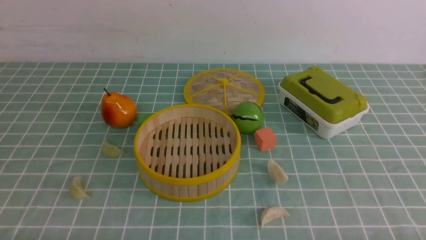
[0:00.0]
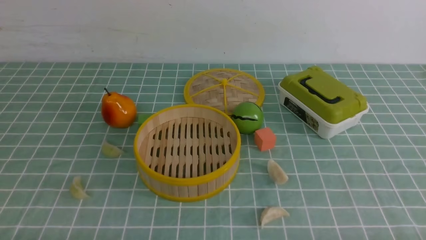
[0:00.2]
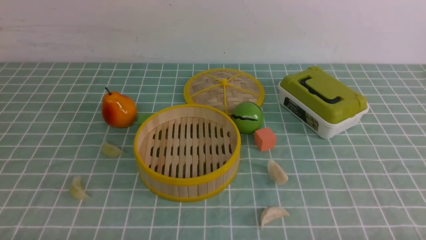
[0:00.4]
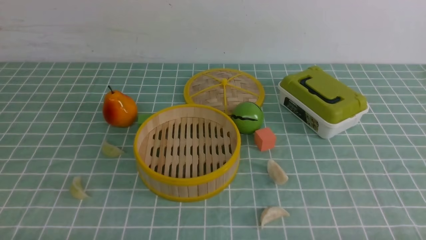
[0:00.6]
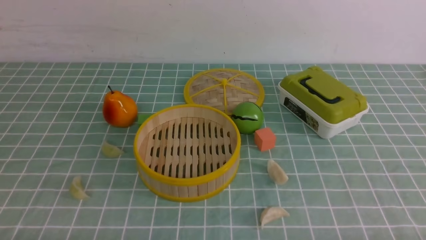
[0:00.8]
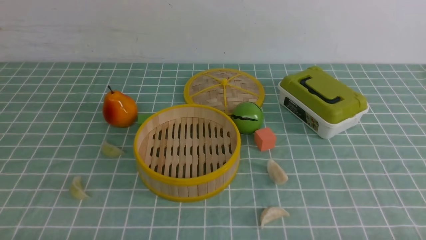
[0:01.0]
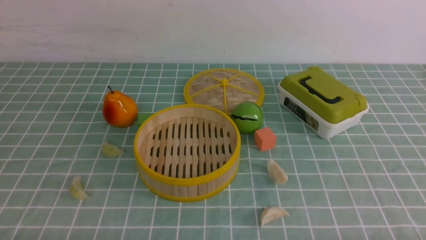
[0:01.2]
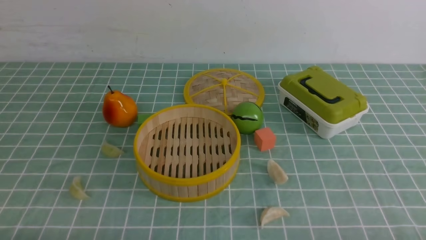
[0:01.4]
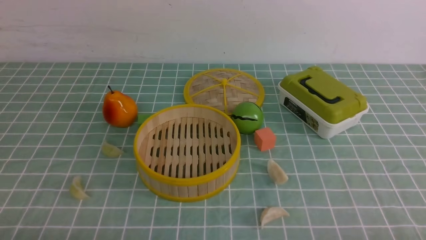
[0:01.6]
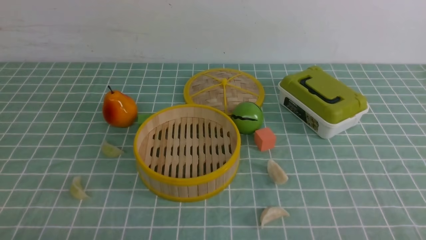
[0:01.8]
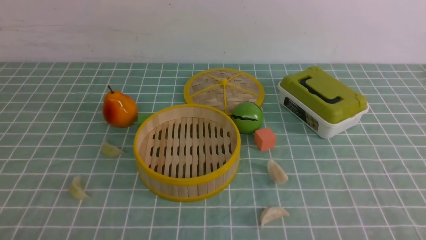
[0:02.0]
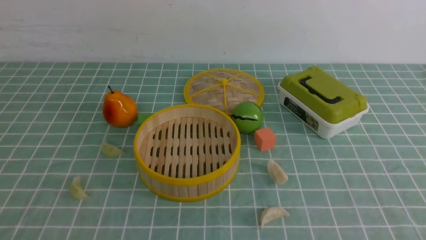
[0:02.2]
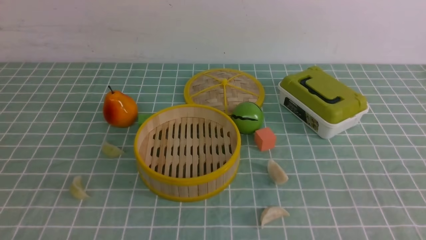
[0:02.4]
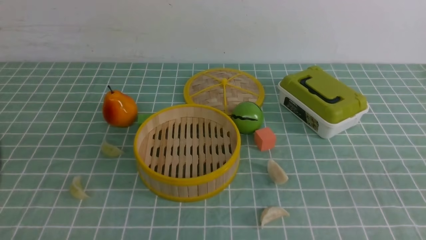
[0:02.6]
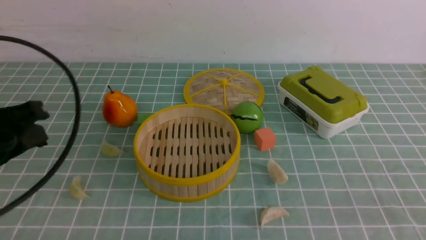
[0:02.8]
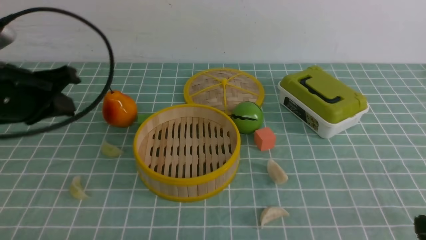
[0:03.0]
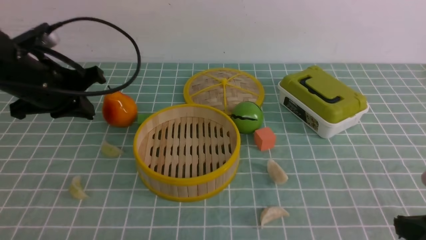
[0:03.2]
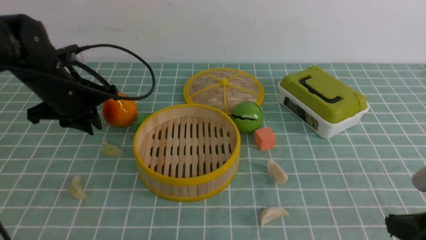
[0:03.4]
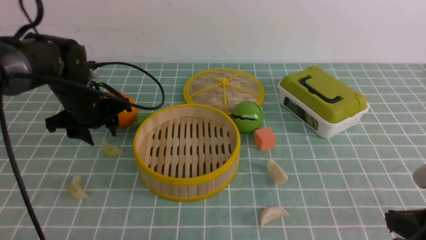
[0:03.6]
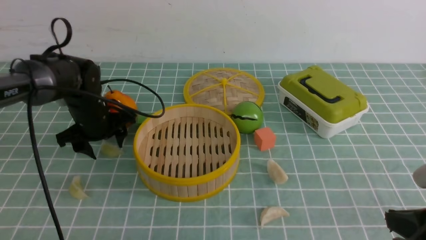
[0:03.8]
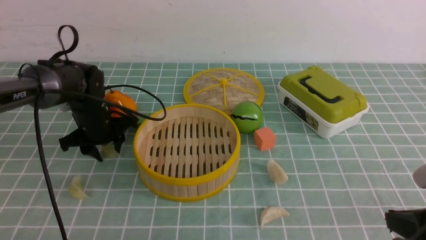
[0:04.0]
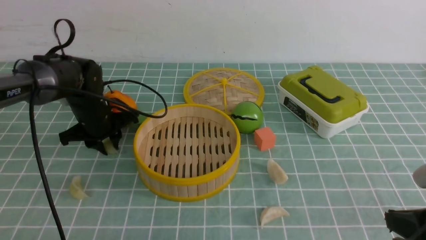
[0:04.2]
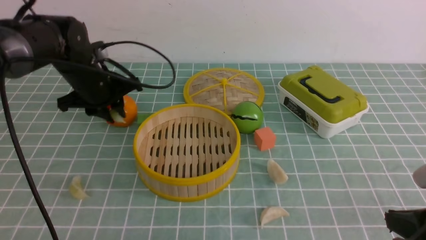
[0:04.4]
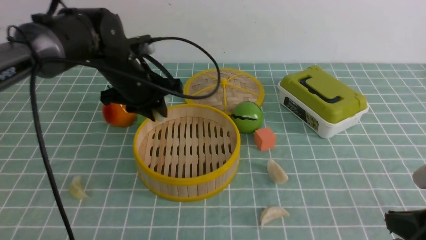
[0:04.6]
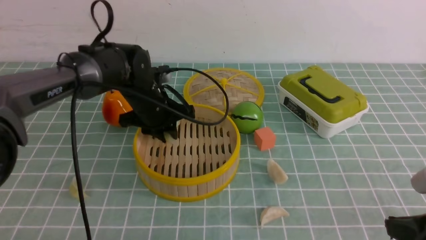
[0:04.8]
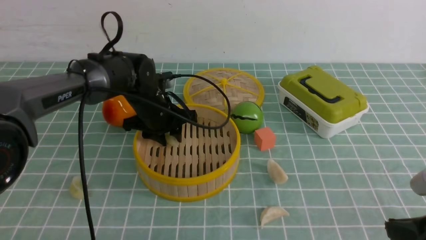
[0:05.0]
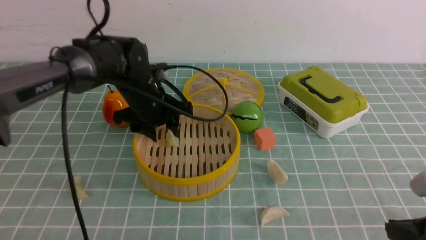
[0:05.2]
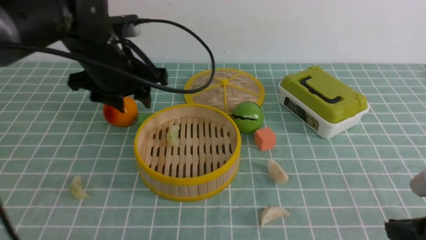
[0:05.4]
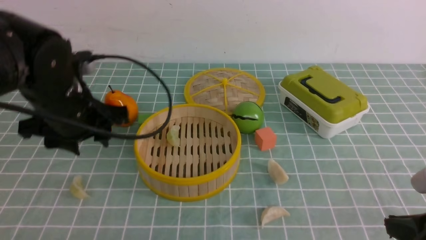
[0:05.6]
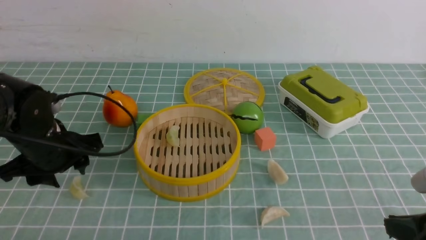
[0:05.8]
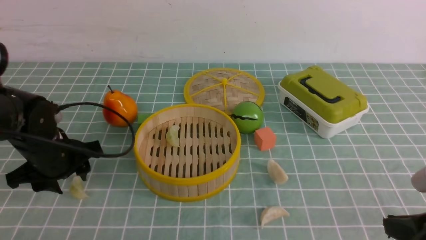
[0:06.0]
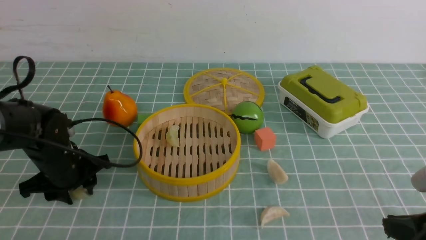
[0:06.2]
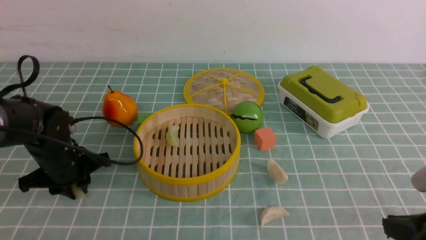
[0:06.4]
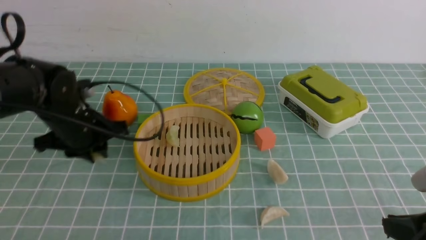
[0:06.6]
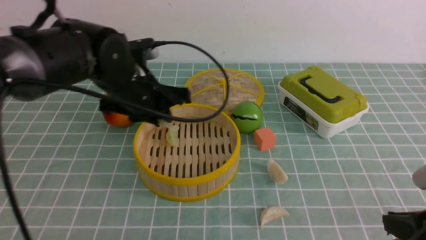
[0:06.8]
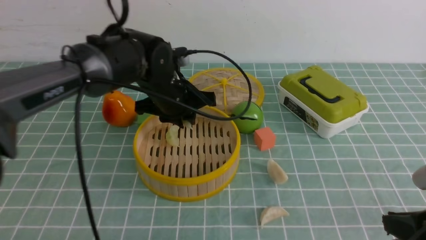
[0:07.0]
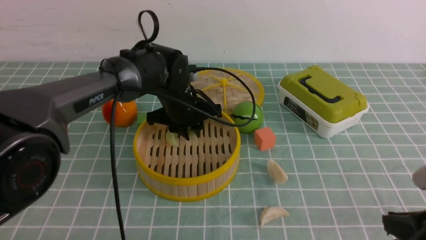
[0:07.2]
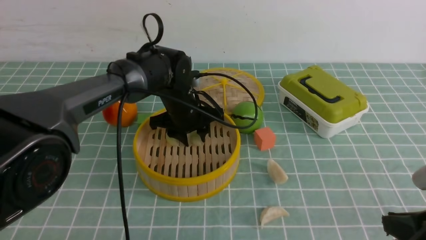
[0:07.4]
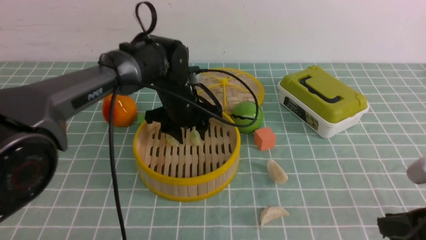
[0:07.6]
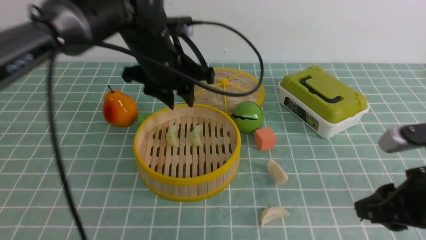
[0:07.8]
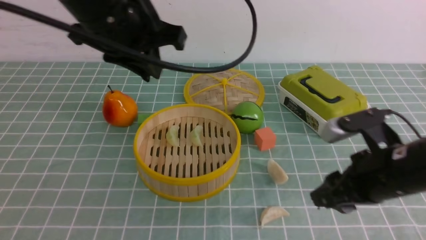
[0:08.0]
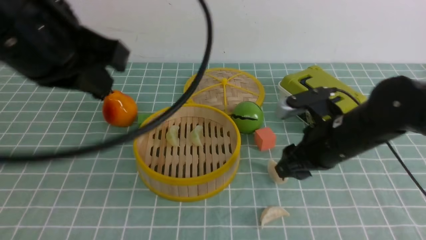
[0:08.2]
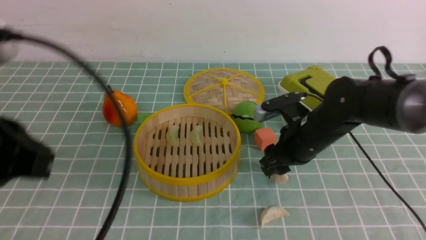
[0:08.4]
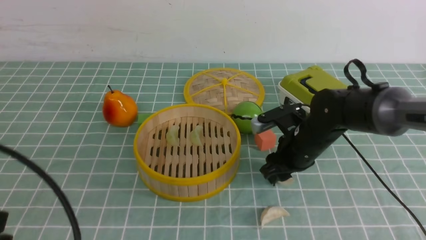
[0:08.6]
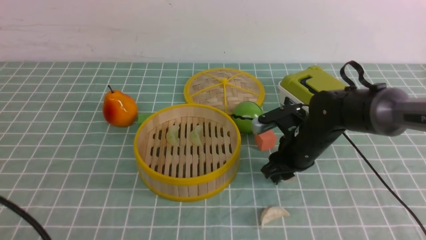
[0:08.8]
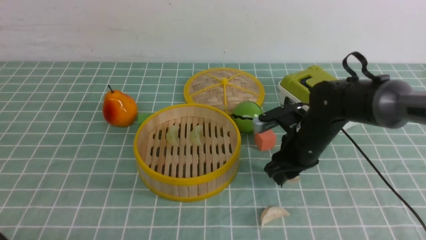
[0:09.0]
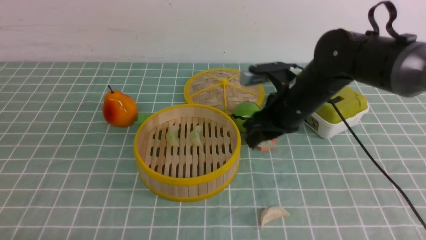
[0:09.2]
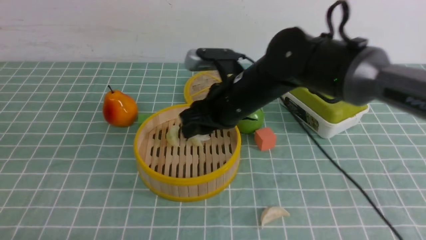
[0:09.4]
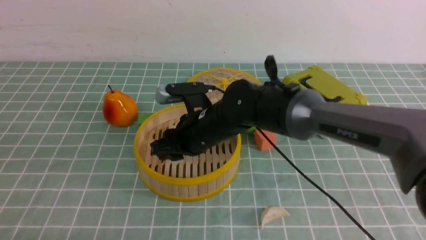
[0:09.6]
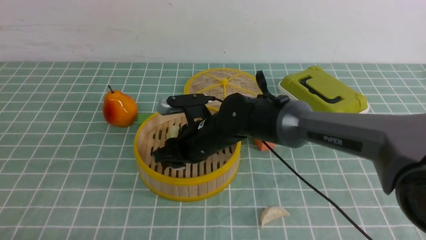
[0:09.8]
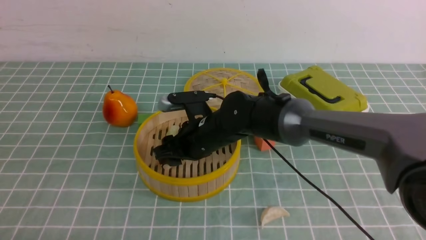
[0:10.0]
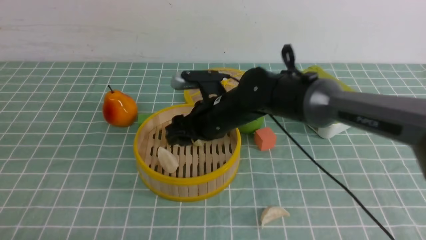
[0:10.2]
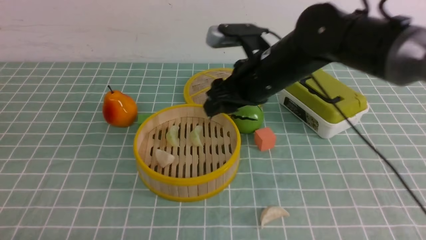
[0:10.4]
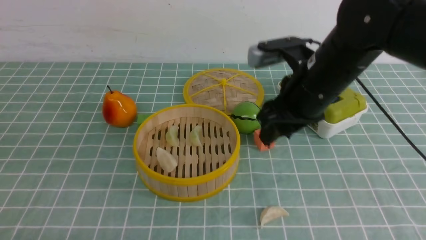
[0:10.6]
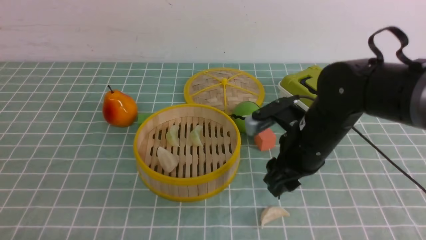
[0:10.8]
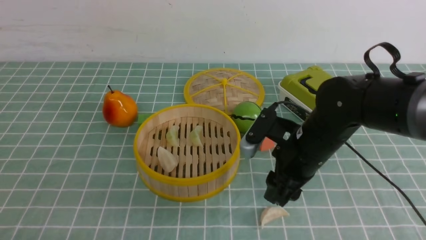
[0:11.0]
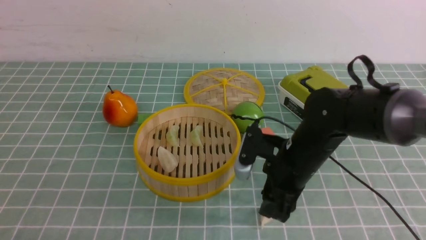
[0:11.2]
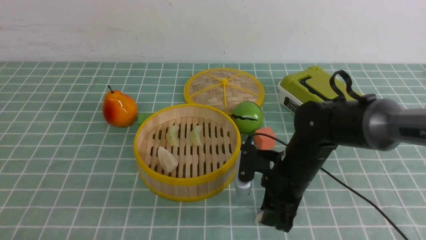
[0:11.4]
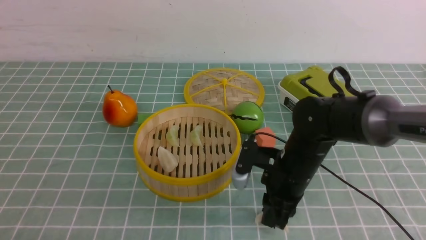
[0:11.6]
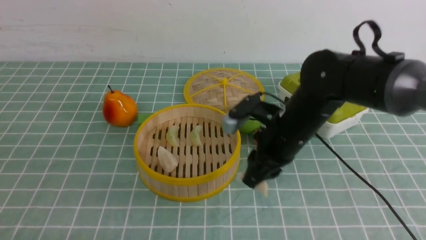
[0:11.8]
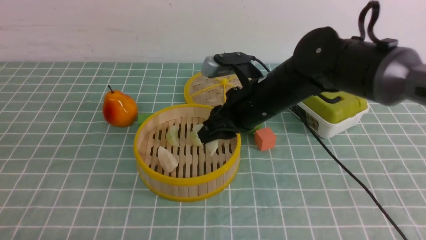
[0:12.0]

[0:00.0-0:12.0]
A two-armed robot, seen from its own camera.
Task of the whole recording: put the dumplings into the steamer on the table with the blue tablecloth.
Step, 0:00.0 to 0:04.0: use the left arm to grab a dumpling.
Step, 0:04.2 to 0:05.2: use the left arm to put the dumpling into the steamer.
Step, 0:05.4 to 0:06.2: use the left arm to grab a dumpling.
Step, 0:06.4 to 0:07.6: use the left arm to put the dumpling into the steamer.
Step, 0:07.8 to 0:08.6: use the right arm to grab a dumpling.
Step, 0:08.8 to 0:10.2: use the right arm to put the dumpling into the steamer.
Step, 0:10.4 to 0:11.4: use the right arm to grab a dumpling.
0:01.6 to 0:03.0: The left gripper travels forward and upward by roughly 25 cm.
0:03.0 to 0:04.4: The left gripper travels forward, downward and to the right by roughly 20 cm, and opens up.
0:04.4 to 0:06.0: The left gripper is displaced backward, to the left and downward by approximately 15 cm, and opens.
0:06.0 to 0:07.6: The left gripper travels to the right, forward and upward by some 20 cm, and closes, then opens again.
0:07.6 to 0:09.0: The right gripper goes approximately 25 cm forward and to the left. The left gripper shifts approximately 40 cm backward and to the left, and closes.
0:09.0 to 0:10.4: The right gripper travels upward and to the left by roughly 10 cm.
0:10.4 to 0:12.0: The right gripper closes its fingers.

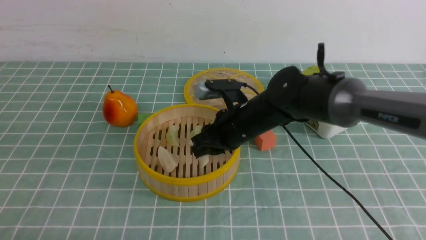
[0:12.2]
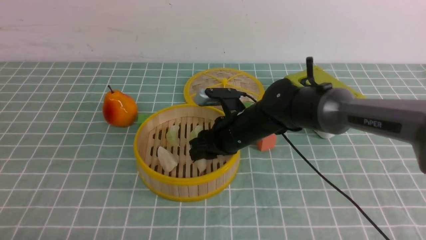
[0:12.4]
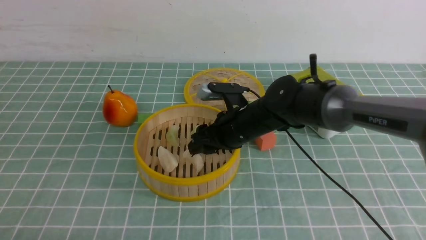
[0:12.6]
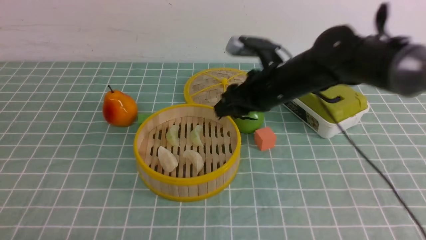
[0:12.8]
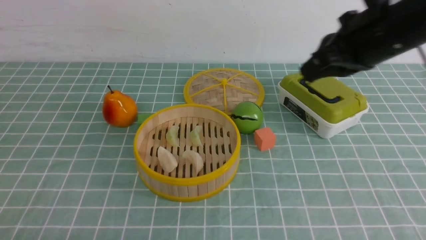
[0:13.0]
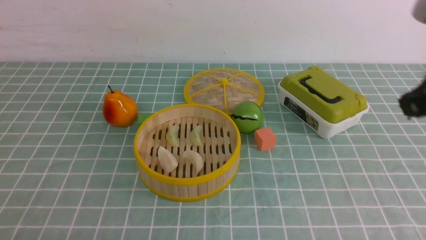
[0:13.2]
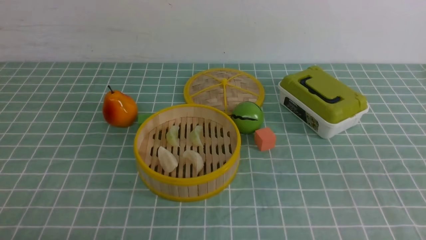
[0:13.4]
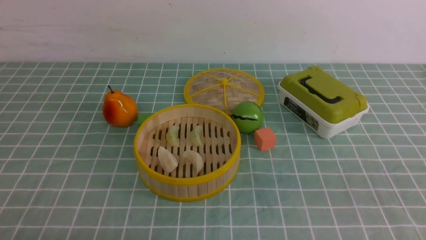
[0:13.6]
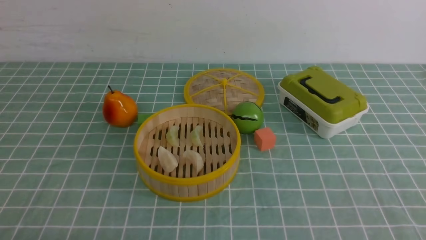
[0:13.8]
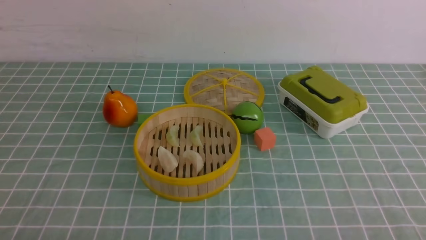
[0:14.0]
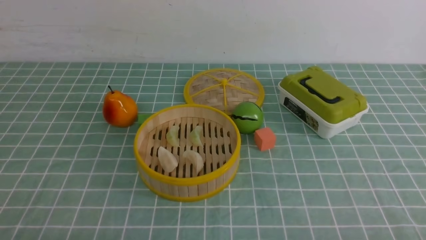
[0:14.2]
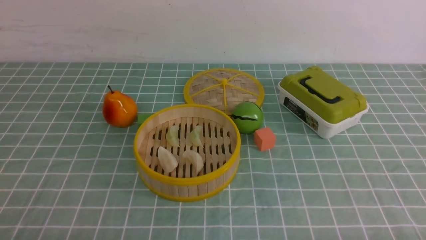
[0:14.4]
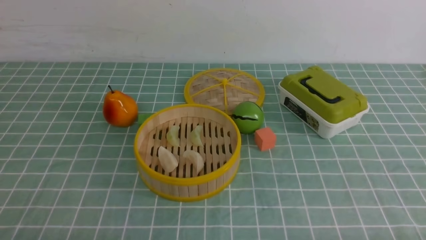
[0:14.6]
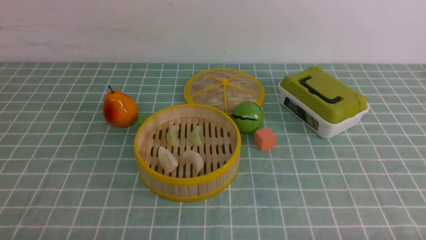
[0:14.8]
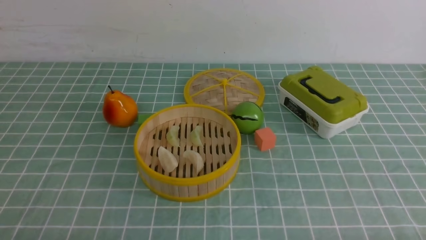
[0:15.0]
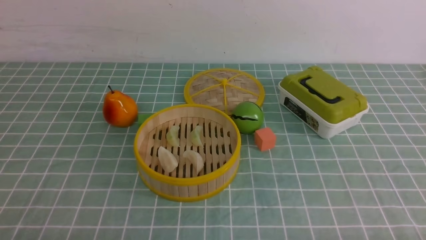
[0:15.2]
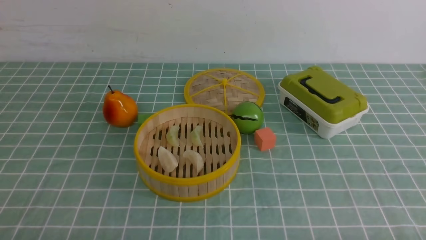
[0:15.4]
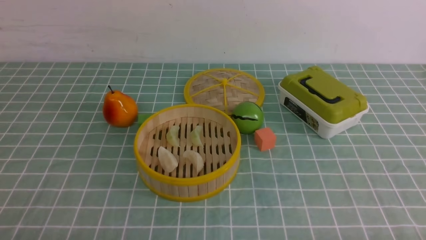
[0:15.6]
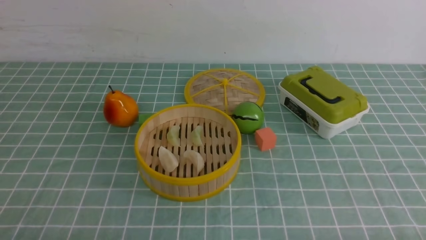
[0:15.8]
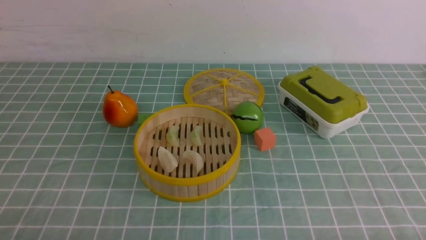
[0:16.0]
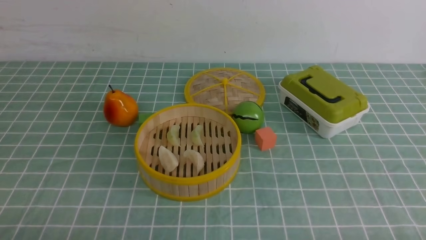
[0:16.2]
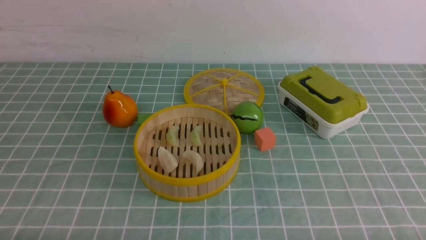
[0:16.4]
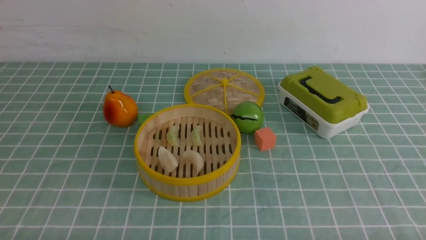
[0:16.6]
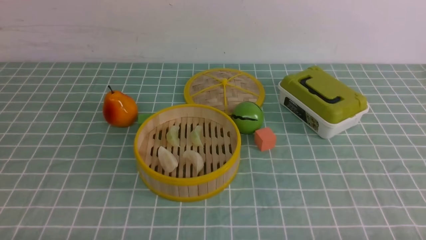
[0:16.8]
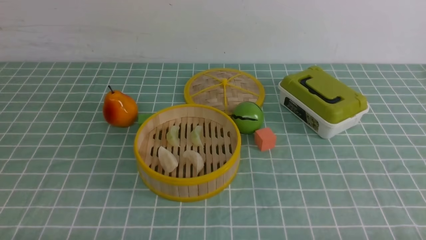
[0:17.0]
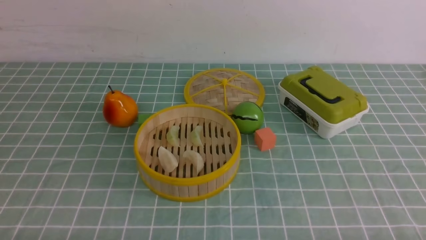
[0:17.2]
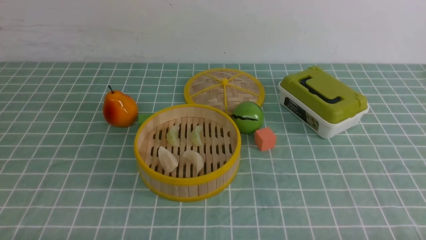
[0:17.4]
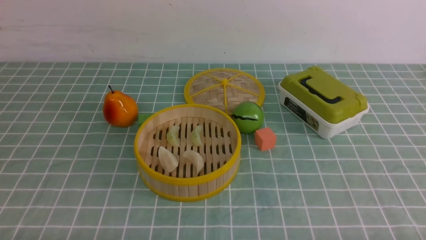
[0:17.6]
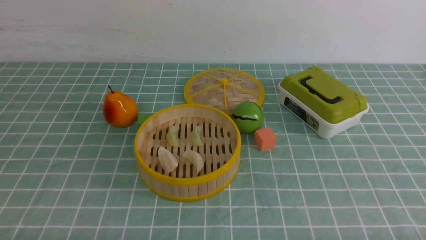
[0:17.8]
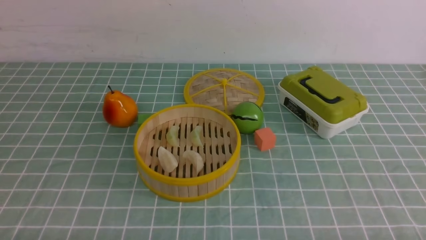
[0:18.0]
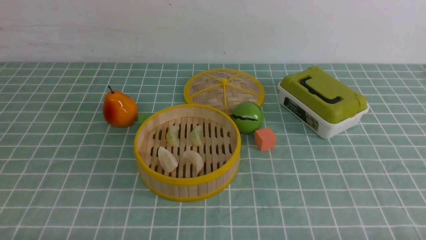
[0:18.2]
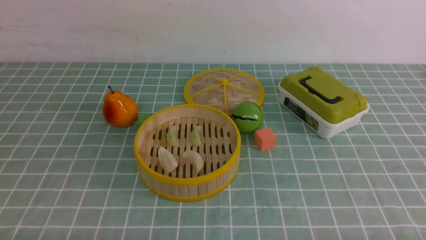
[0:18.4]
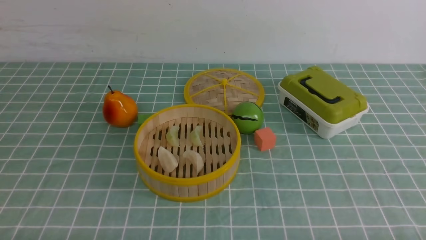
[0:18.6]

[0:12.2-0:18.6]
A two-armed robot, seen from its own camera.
Task of the whole recording: put the dumplings into the steamer on the table with the blue tablecloth.
0:12.2 to 0:13.8: The right gripper shifts roughly 40 cm backward and to the right, and closes its fingers.
0:17.0 to 0:18.6: Neither gripper changes place.
